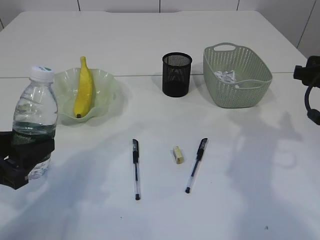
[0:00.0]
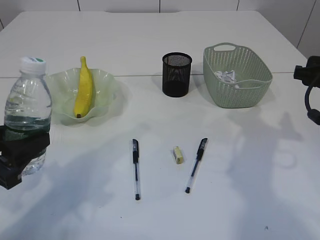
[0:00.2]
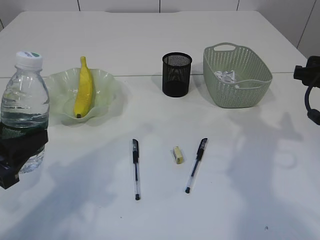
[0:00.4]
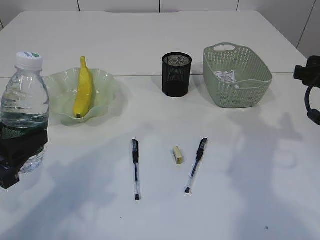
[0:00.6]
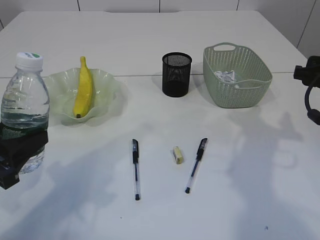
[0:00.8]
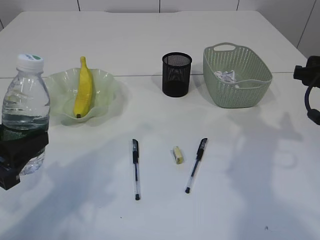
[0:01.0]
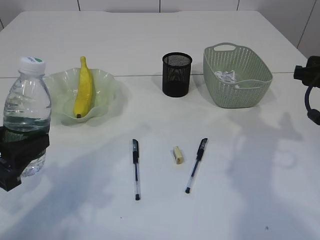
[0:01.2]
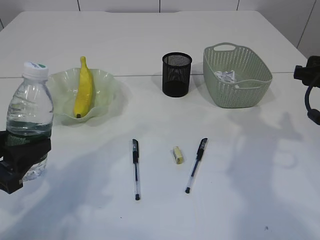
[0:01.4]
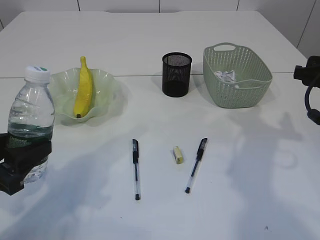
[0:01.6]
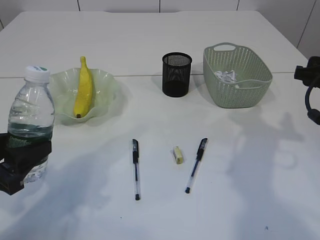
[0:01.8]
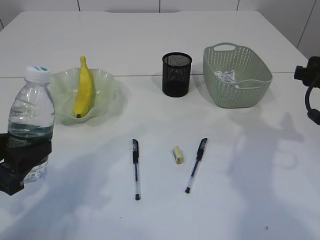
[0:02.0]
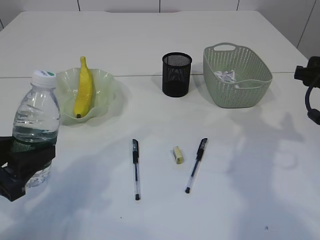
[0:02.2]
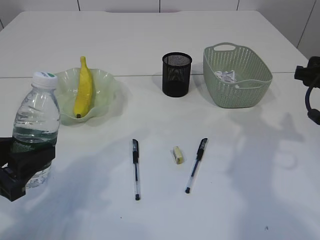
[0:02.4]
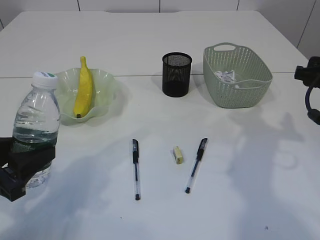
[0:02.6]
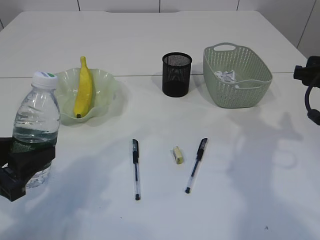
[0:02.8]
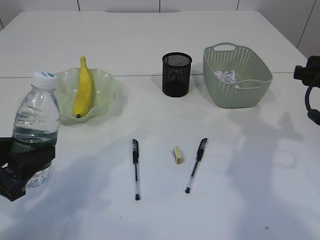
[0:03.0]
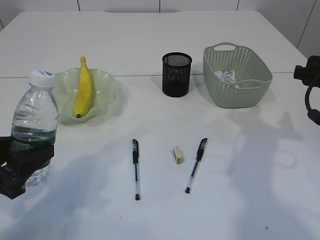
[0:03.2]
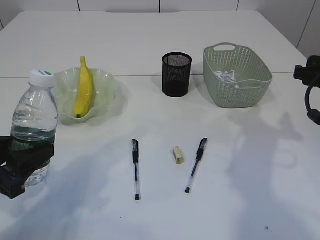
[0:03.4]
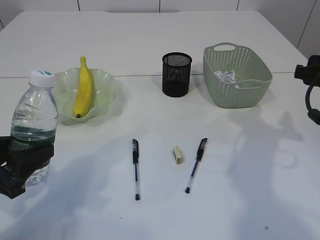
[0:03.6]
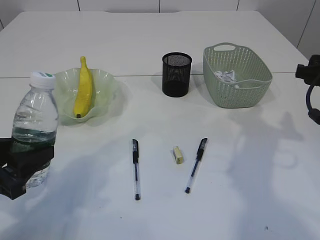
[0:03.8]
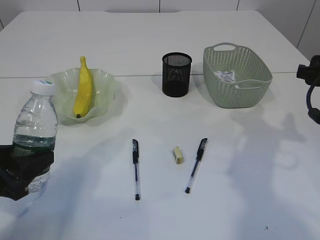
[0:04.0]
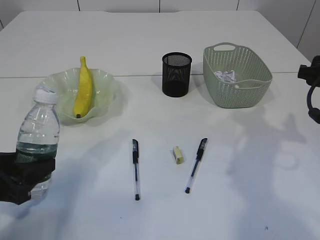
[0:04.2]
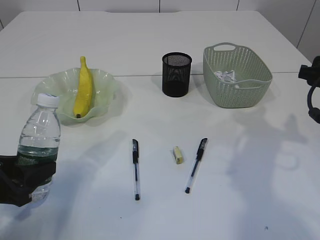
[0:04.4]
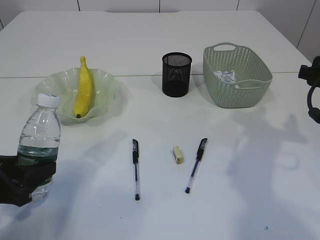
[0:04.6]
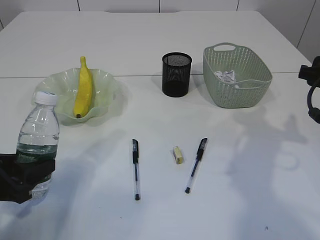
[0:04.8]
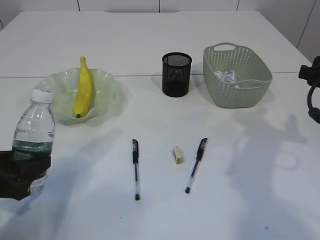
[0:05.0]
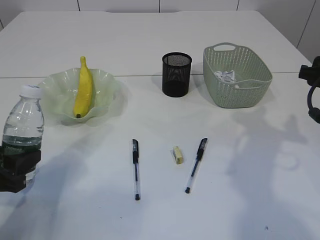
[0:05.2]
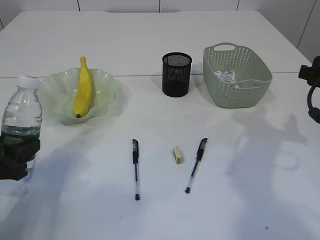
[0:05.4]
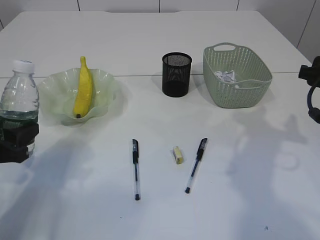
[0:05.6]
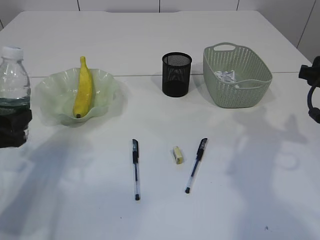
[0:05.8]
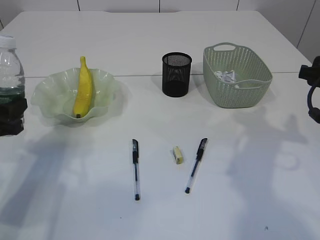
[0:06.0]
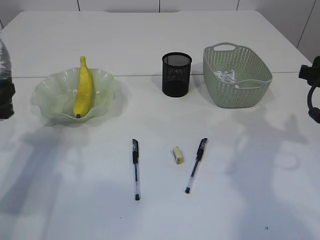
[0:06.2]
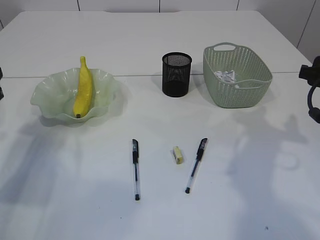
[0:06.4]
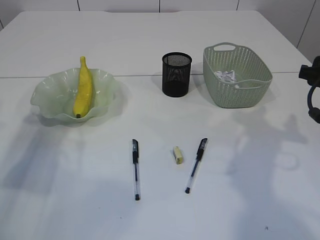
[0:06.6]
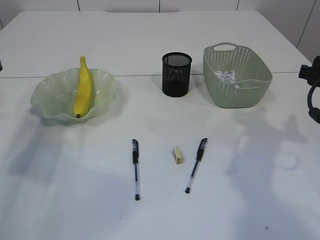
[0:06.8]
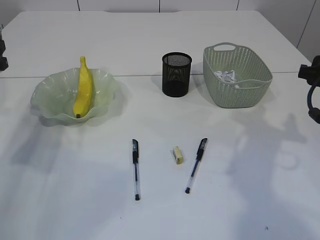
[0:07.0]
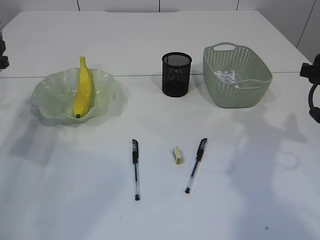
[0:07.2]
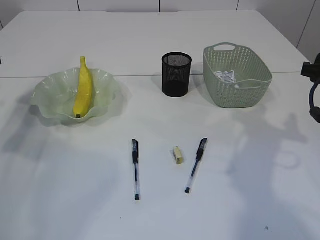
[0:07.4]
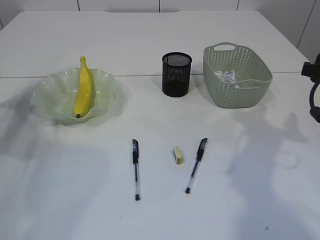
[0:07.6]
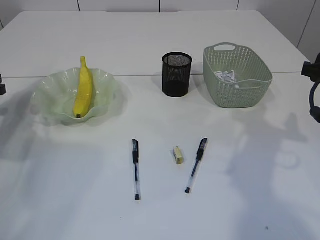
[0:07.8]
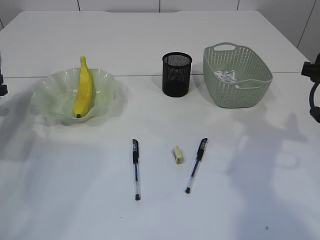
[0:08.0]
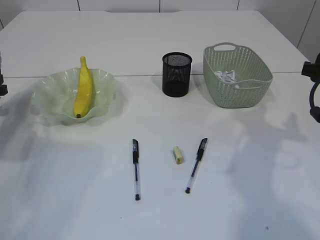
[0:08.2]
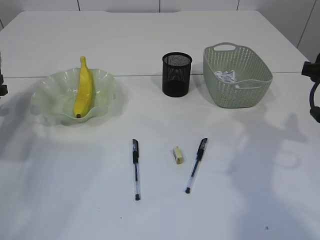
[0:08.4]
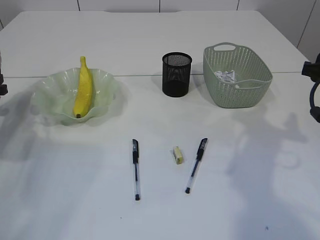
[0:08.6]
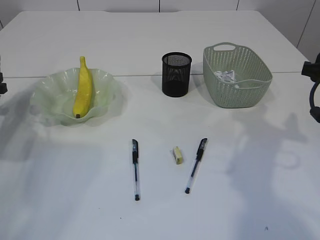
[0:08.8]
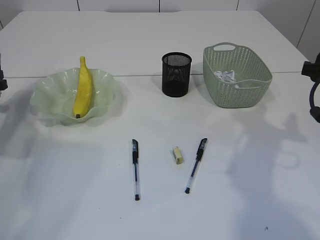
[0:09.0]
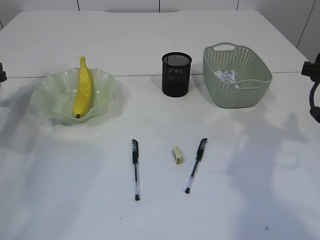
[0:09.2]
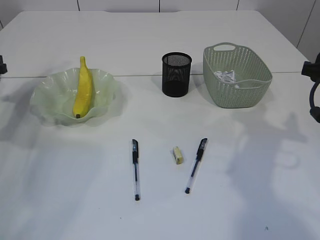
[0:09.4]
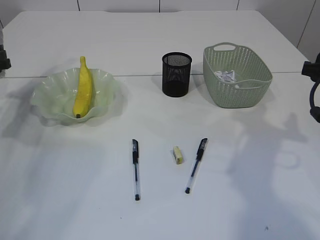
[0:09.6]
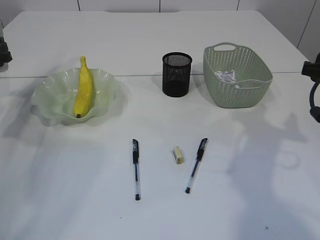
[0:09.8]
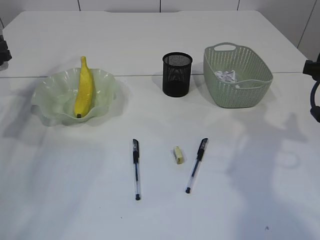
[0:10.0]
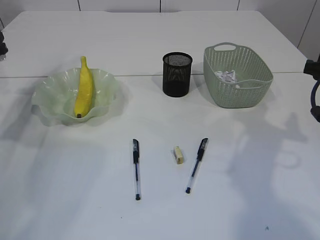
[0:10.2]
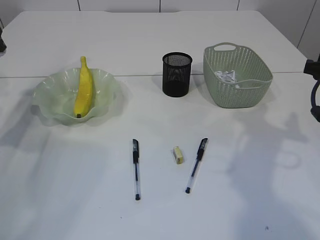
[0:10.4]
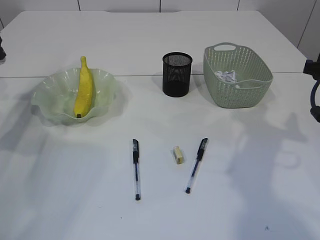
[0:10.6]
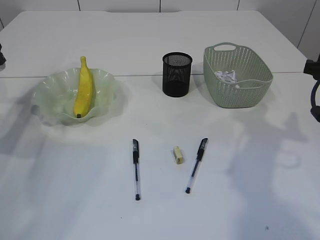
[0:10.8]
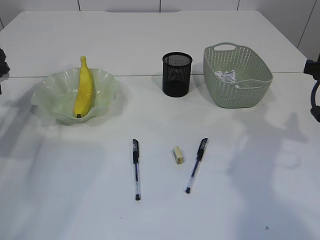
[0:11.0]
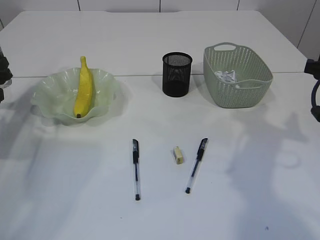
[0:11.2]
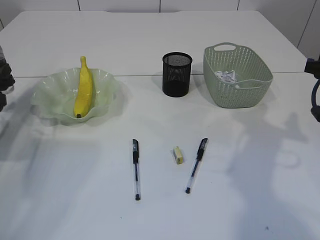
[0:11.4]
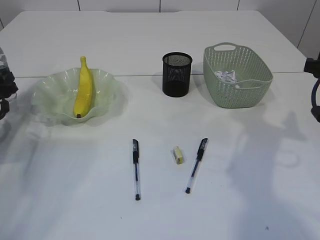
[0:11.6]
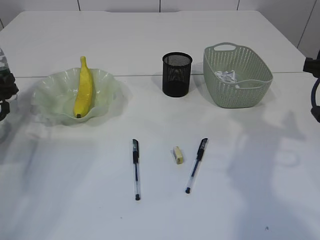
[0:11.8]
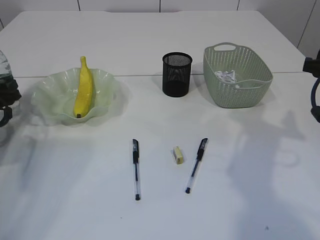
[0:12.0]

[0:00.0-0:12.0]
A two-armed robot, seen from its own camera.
0:00.0 to 0:01.6: The grippers move only a little.
0:01.6 to 0:03.0: Both grippers stay put.
0:03.0 to 0:04.4: The grippers make only small movements.
0:04.4 to 0:06.0: The left gripper goes approximately 5 cm forward.
0:06.0 to 0:07.6: The left gripper travels forward and to the left by approximately 15 cm.
0:09.0 to 0:10.4: The left gripper heads upward, covering about 5 cm.
0:10.4 to 0:12.0: The left gripper shifts roughly 10 cm downward.

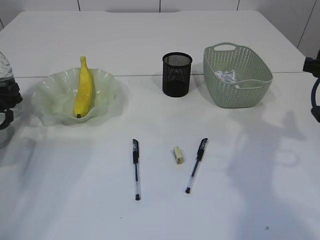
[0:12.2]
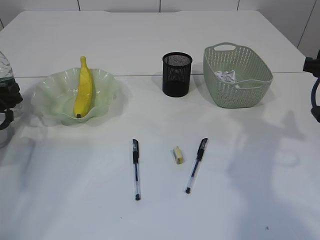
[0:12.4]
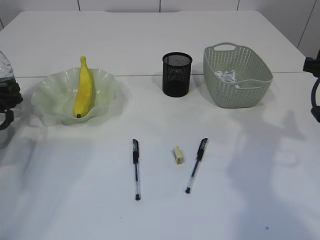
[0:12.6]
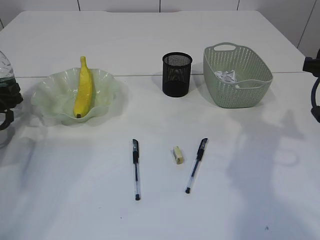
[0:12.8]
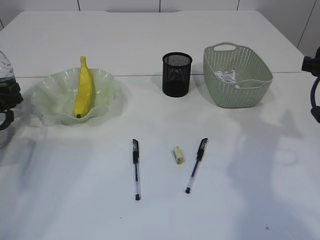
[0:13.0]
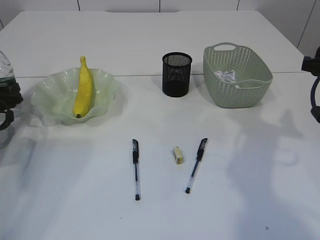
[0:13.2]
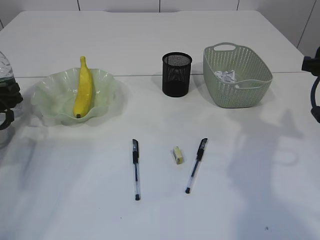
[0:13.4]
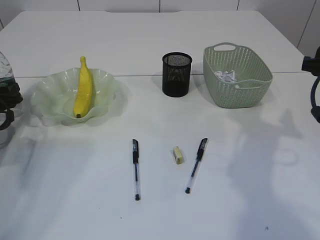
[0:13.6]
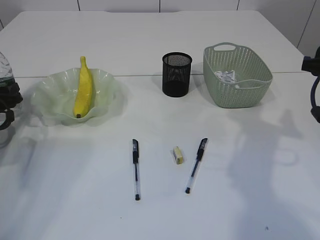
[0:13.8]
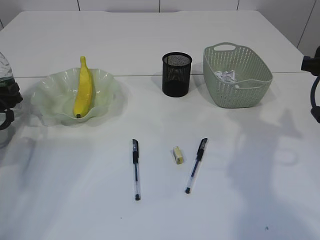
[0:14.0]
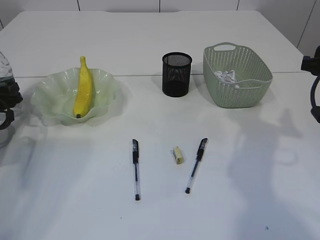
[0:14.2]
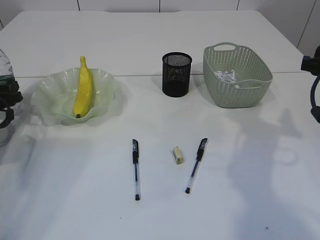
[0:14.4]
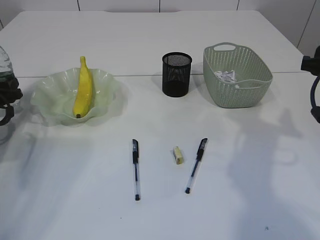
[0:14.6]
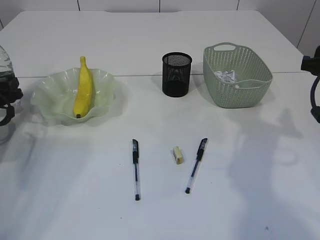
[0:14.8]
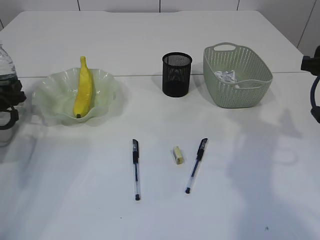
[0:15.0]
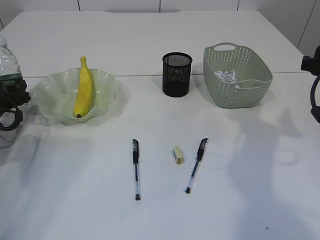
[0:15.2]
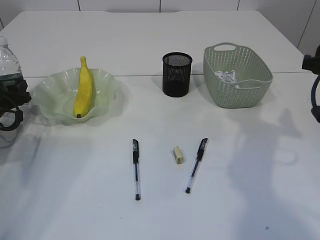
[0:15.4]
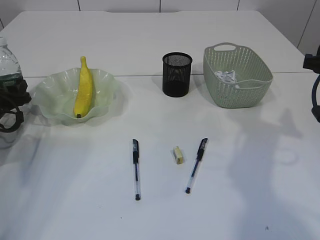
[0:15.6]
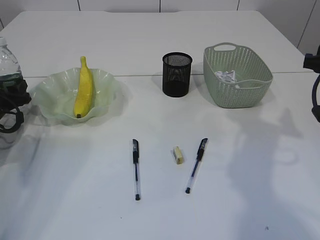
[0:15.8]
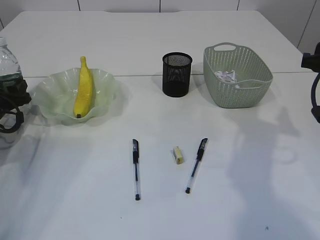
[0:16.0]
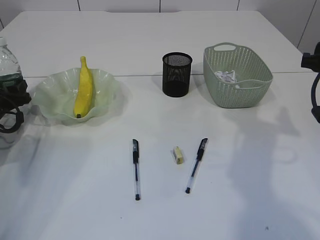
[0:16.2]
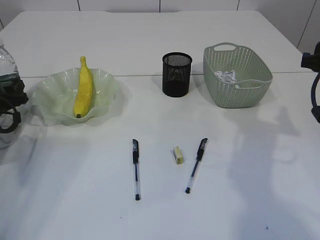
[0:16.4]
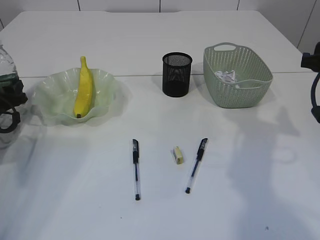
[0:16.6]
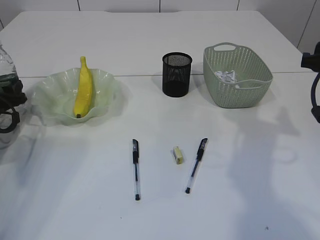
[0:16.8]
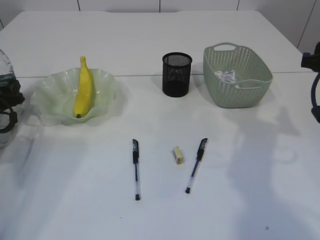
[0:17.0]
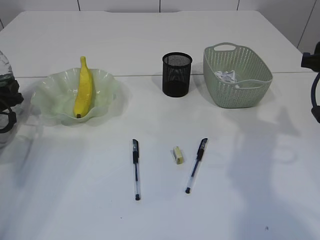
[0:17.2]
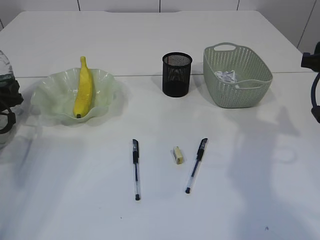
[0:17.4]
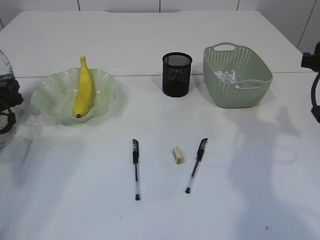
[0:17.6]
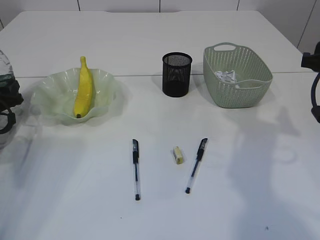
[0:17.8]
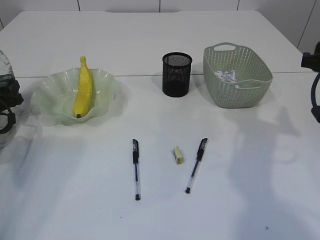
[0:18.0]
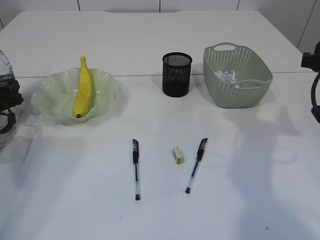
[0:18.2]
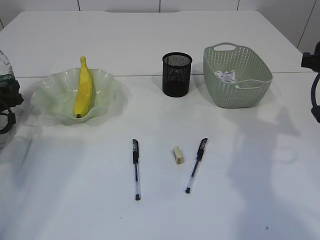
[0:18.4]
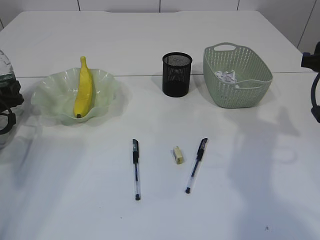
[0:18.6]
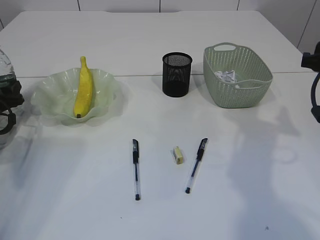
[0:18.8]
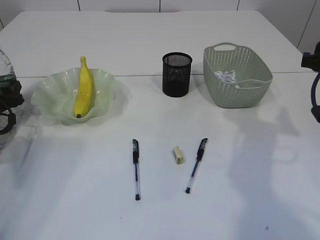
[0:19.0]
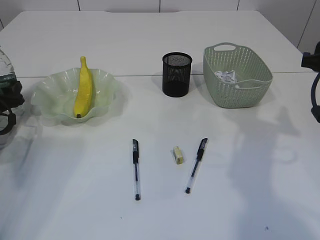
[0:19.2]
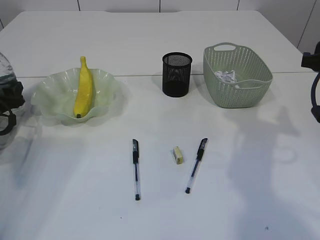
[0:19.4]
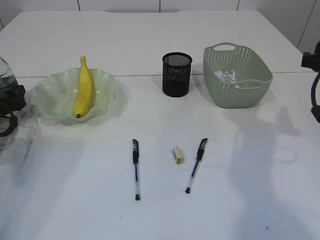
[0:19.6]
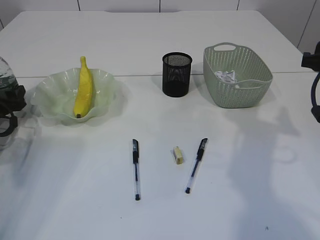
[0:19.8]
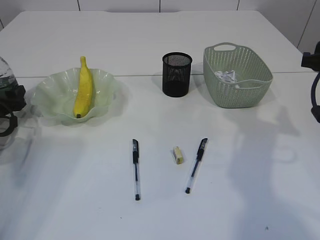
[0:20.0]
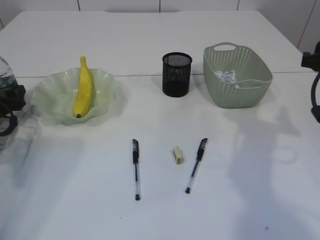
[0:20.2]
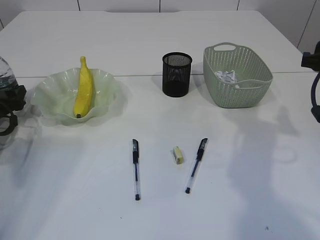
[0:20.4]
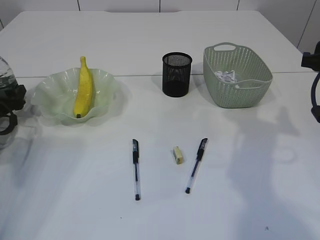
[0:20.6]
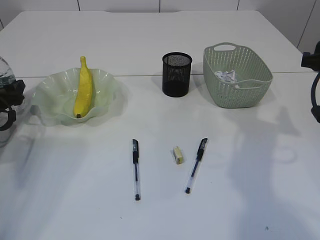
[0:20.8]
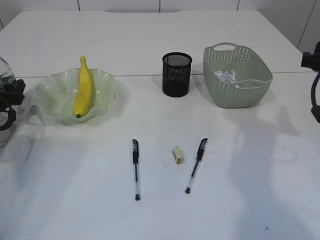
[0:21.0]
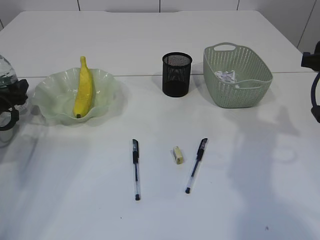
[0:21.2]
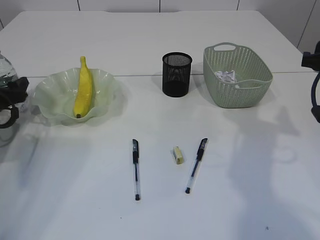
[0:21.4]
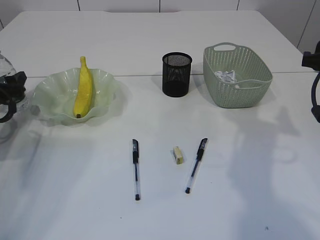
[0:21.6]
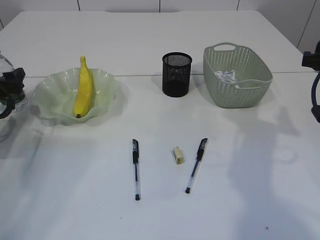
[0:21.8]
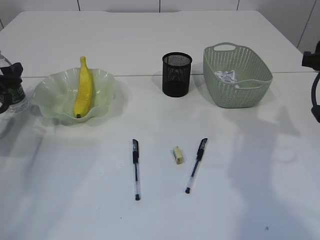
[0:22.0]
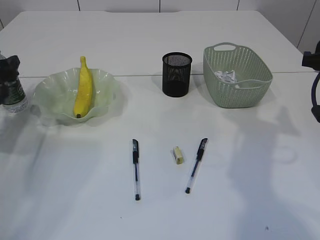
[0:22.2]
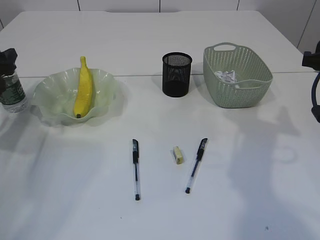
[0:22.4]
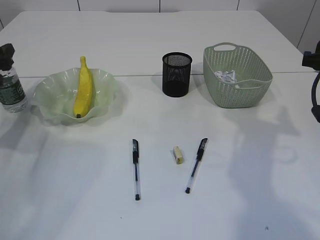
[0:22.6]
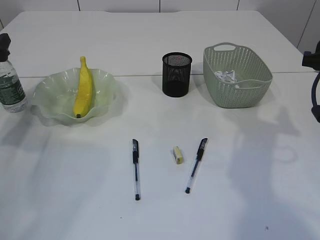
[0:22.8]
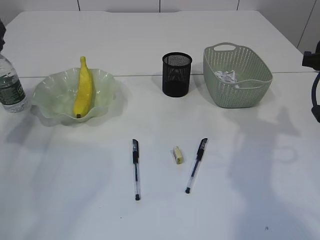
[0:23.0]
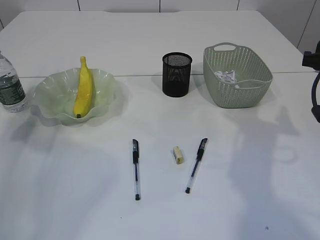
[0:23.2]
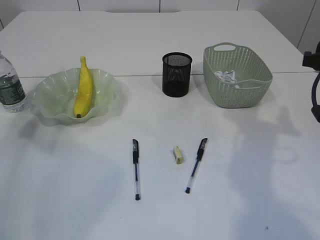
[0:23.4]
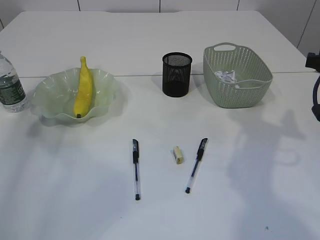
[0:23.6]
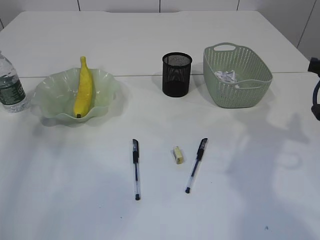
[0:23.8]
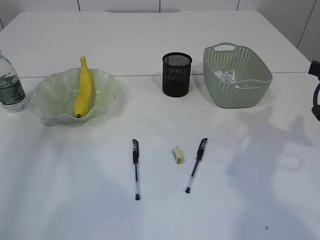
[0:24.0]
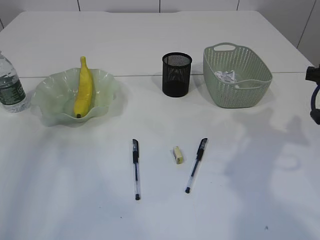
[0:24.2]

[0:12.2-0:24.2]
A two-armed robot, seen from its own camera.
Step, 0:12.2 to 0:22.0: Place the bottle.
0:12.2 to 0:13.8: Neither gripper changes place.
0:13.8 to 0:15.2: There are only small adjustments of the grippers.
0:15.2 to 0:16.6: Neither gripper changes place.
0:16.6 to 0:19.8: Both grippers stay put.
0:21.2 to 0:22.6: The left gripper travels upward by about 10 cm.
0:22.6 to 0:24.2: The left gripper is displaced upward by roughly 20 cm.
